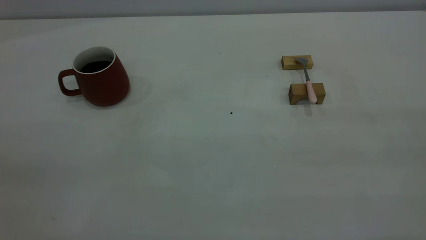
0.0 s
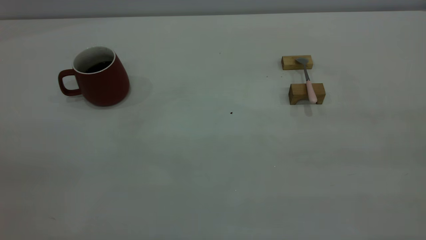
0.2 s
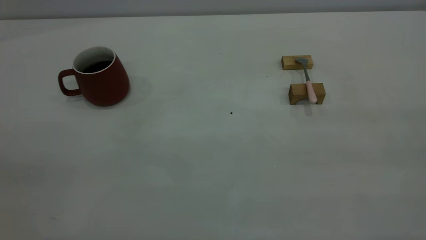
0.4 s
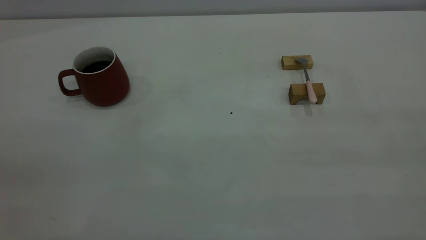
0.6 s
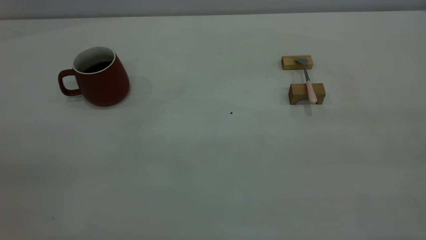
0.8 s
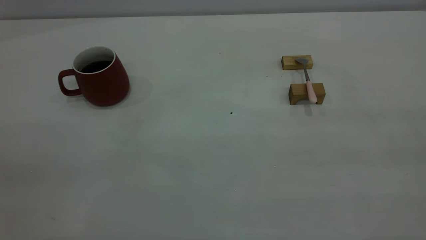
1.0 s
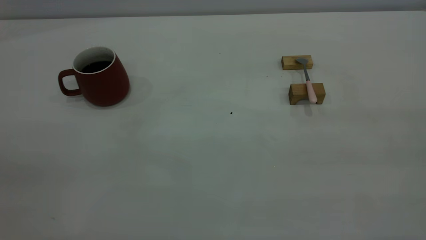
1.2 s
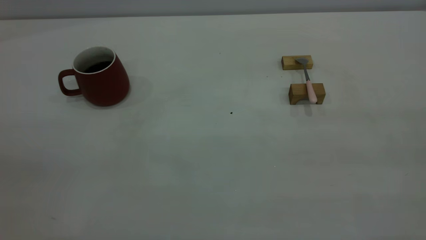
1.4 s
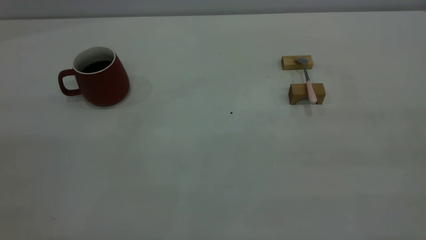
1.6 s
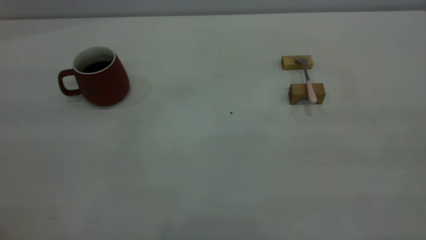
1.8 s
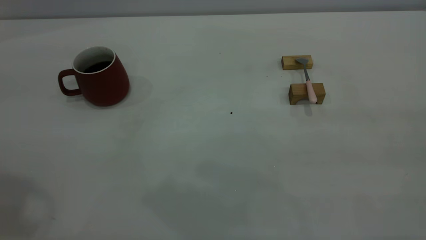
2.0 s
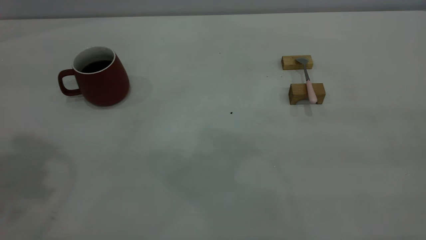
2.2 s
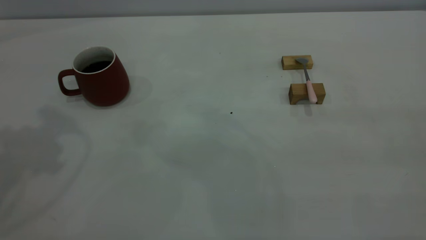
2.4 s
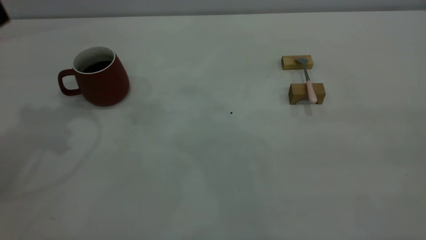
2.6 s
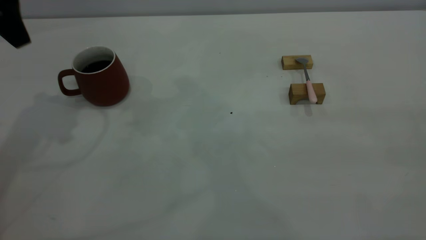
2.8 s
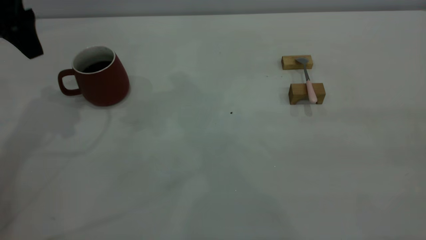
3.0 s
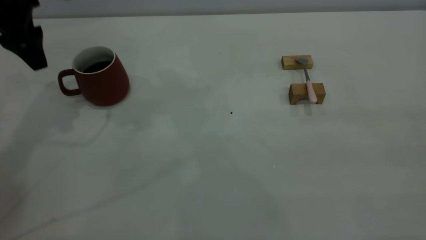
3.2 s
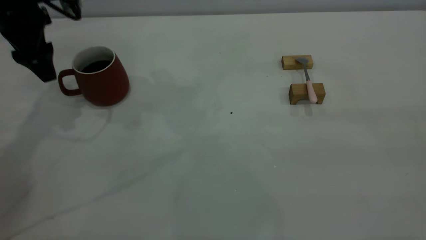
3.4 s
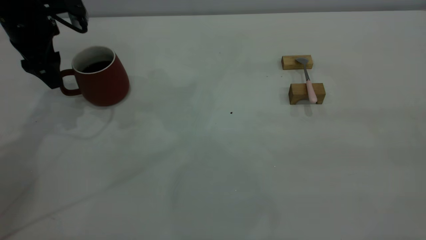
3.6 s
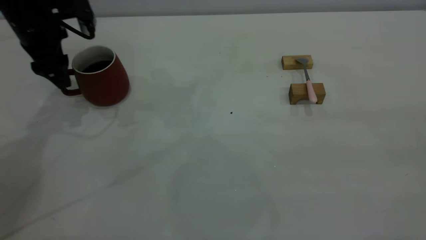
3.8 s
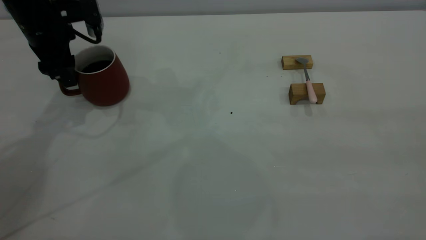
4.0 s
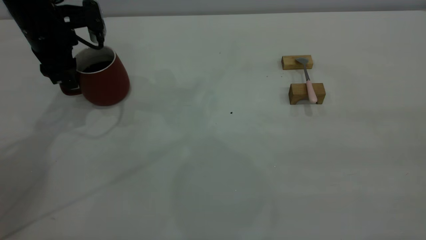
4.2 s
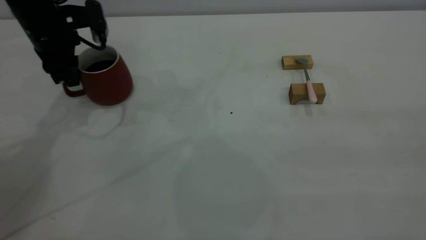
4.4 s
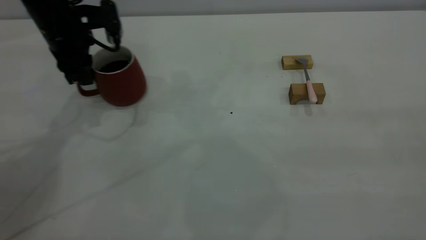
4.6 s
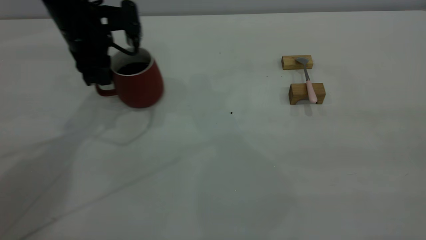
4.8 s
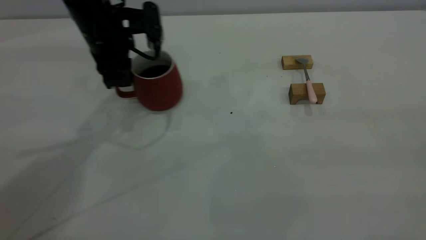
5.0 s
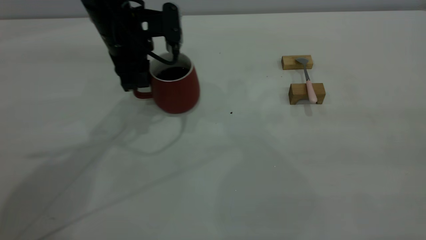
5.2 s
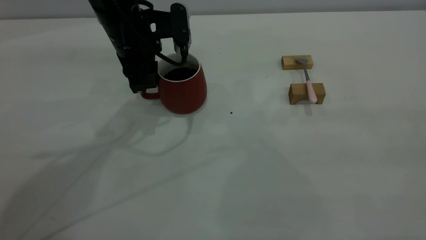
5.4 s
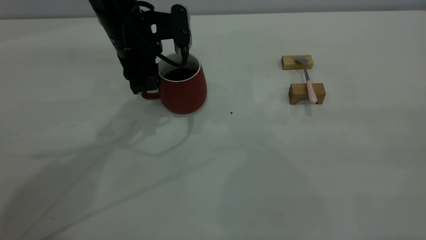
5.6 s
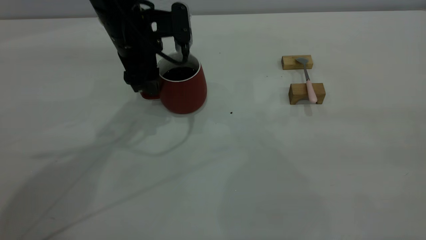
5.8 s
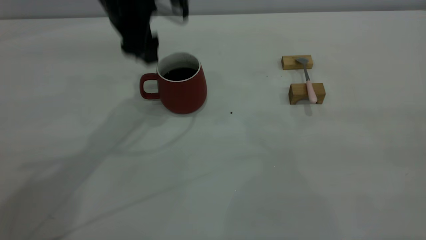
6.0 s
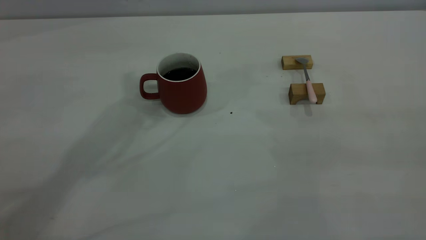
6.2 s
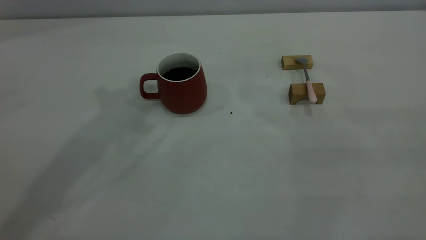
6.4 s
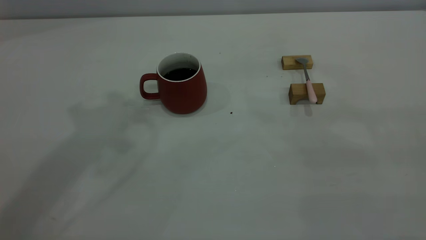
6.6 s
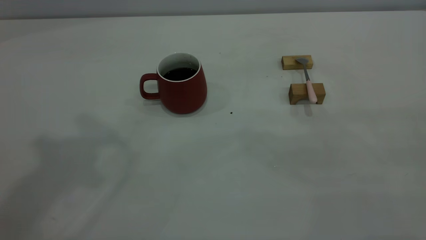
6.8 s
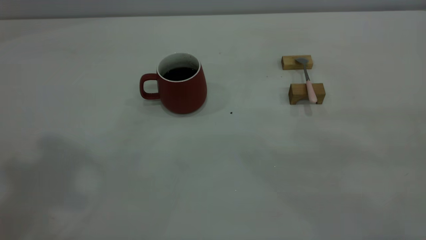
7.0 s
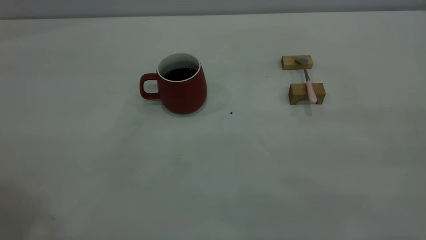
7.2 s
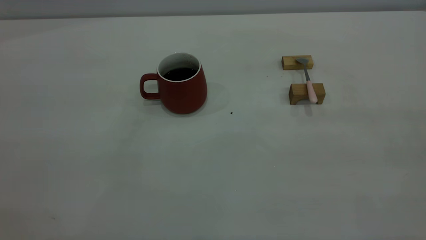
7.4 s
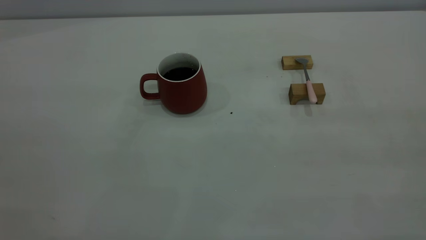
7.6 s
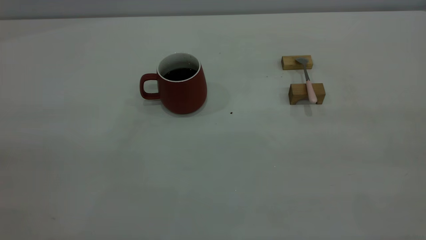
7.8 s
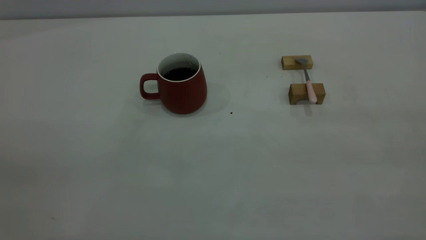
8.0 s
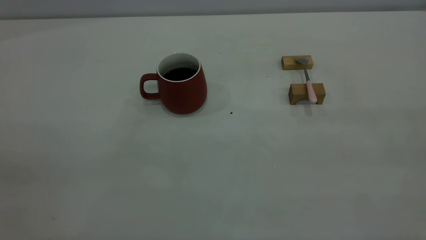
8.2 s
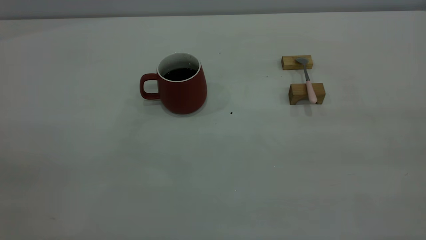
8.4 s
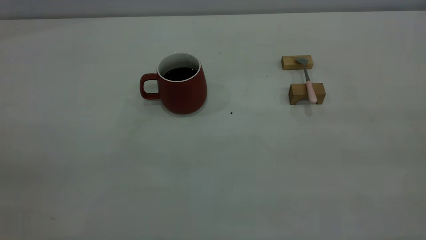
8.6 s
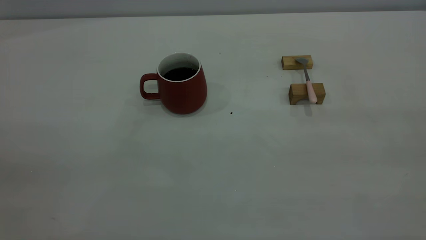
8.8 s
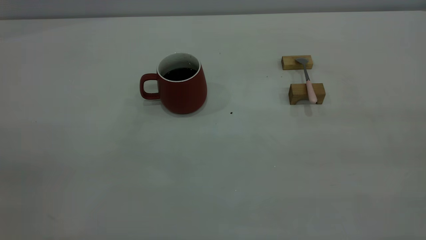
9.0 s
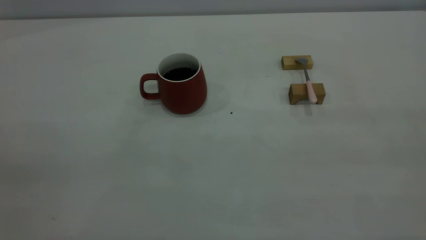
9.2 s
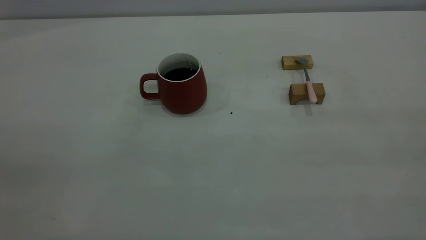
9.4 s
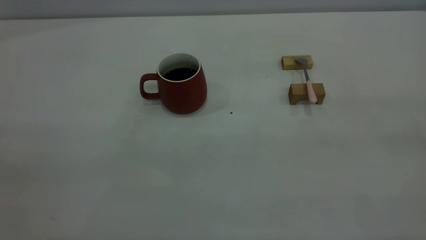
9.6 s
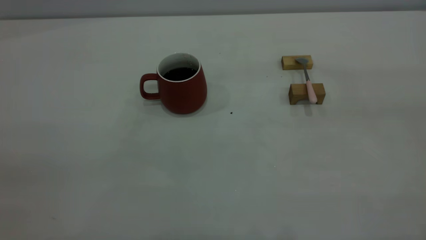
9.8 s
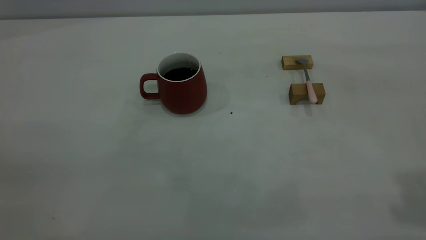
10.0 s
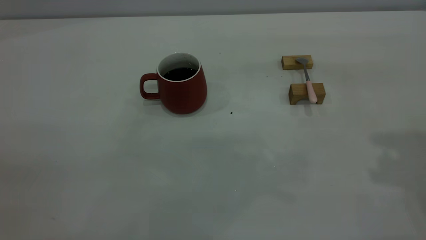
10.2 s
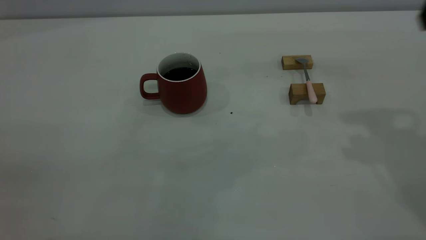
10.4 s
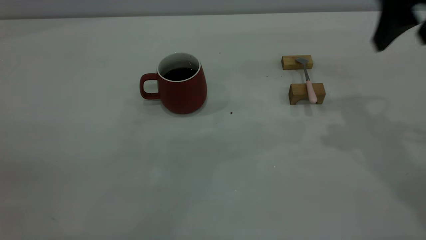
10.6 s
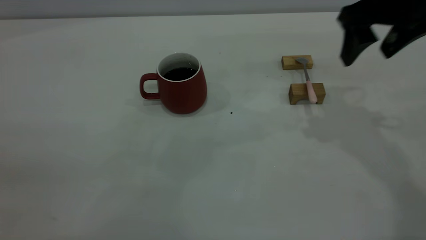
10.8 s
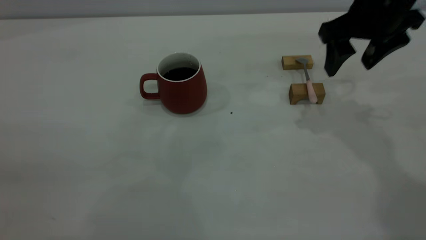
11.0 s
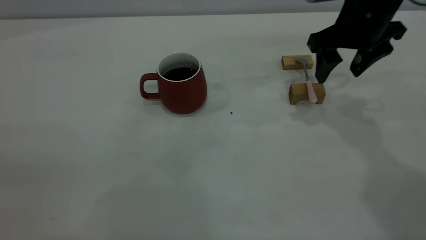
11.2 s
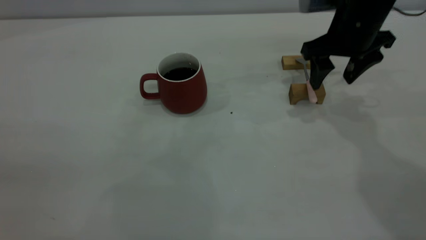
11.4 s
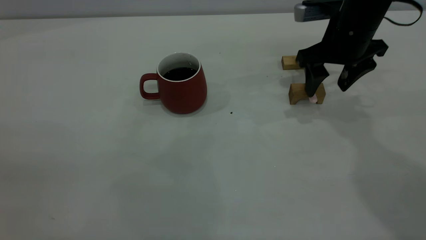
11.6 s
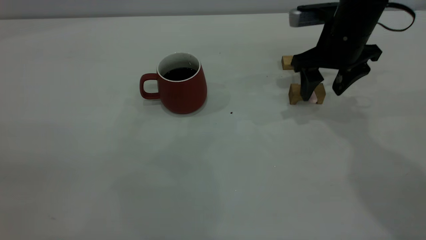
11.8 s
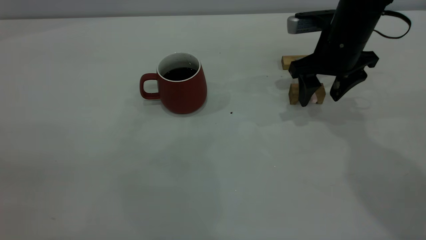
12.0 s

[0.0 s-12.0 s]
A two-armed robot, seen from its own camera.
Step, 0.0 to 6.0 s: Move the cup with coffee to the center of view.
1.6 to 3.0 s: The left gripper heads forward and downward, covering approximately 40 cm, and opens its fingers.
3.0 to 4.4 s: The left gripper travels downward by roughly 10 cm, and closes.
4.4 to 6.0 s: The left gripper heads to the right and upward, covering some 15 cm, and opens.
6.0 to 7.6 s: The left gripper shifts some 50 cm backward, upward and to the left, and closes up.
10.4 to 12.0 s: The right gripper heads downward, forward and to the left, covering some 20 cm.

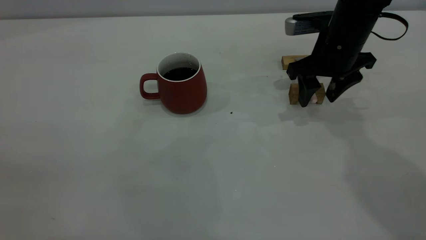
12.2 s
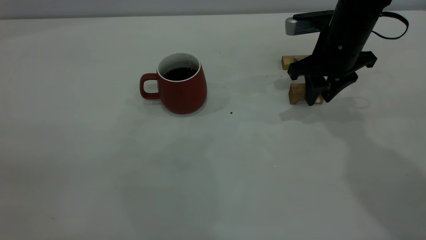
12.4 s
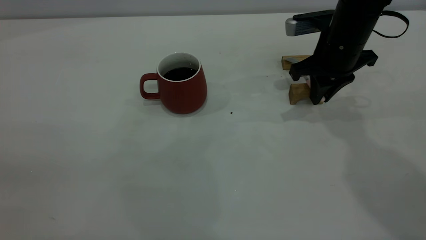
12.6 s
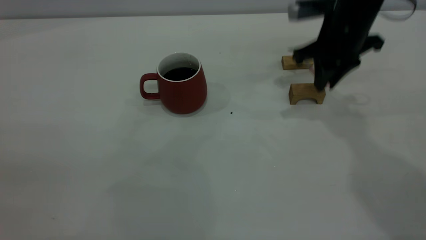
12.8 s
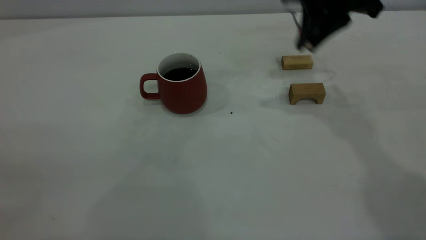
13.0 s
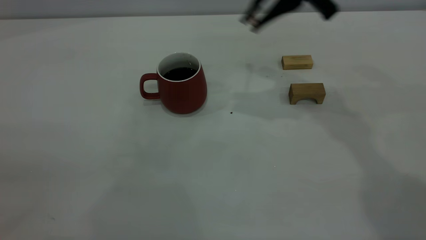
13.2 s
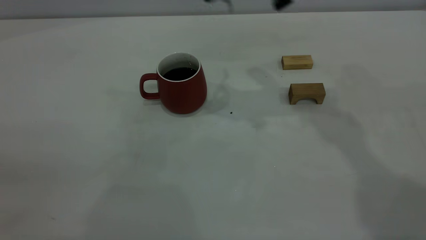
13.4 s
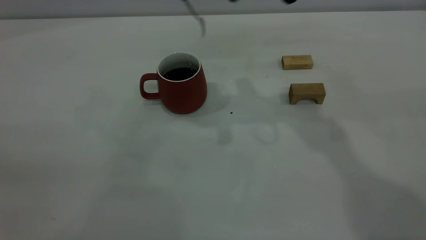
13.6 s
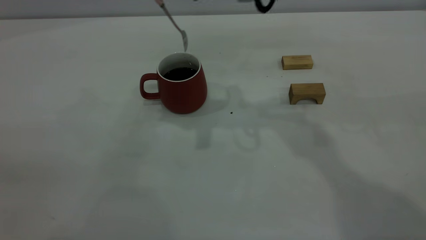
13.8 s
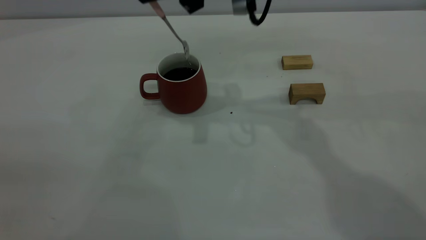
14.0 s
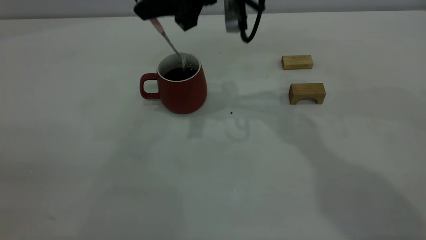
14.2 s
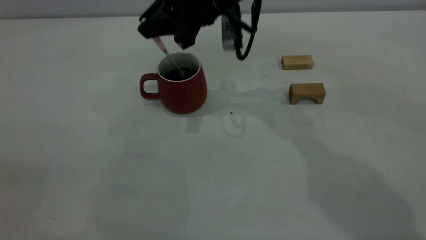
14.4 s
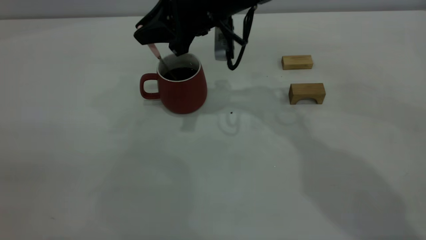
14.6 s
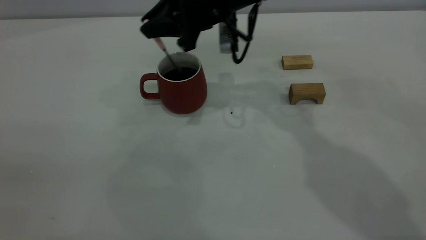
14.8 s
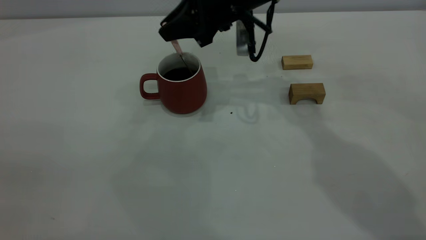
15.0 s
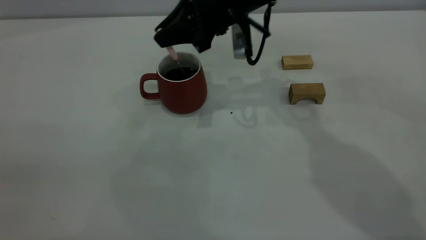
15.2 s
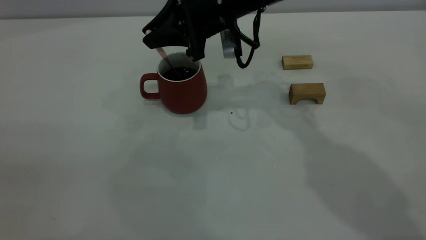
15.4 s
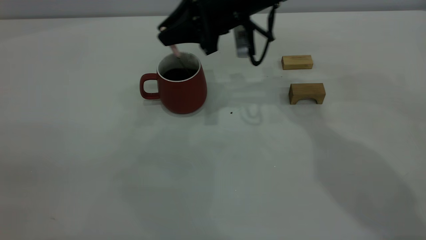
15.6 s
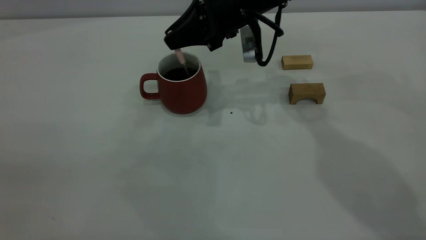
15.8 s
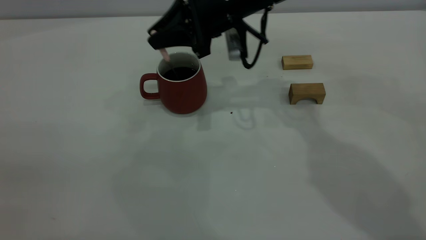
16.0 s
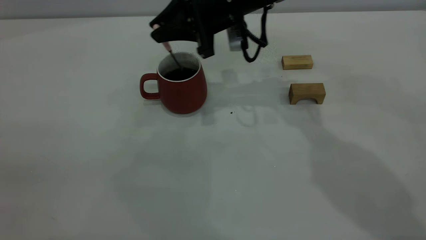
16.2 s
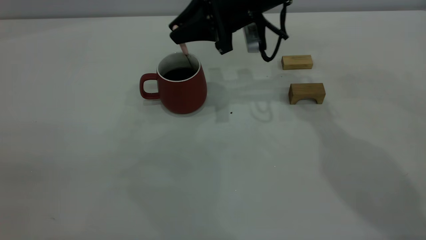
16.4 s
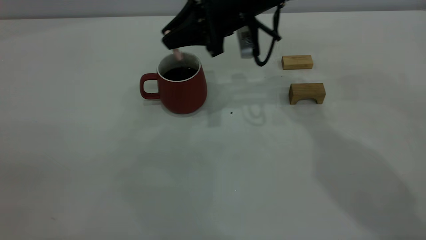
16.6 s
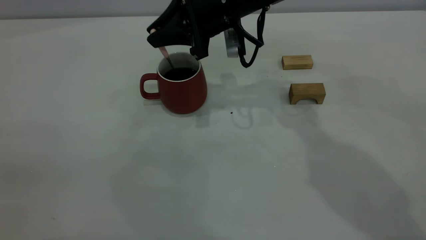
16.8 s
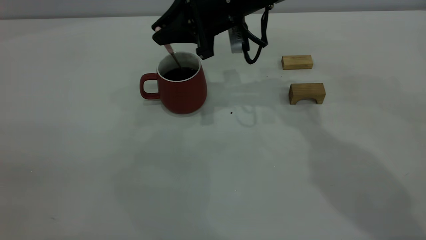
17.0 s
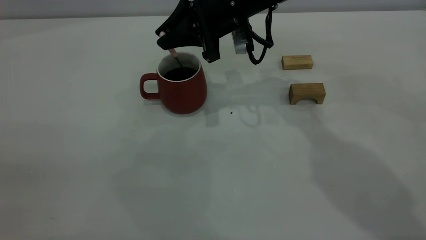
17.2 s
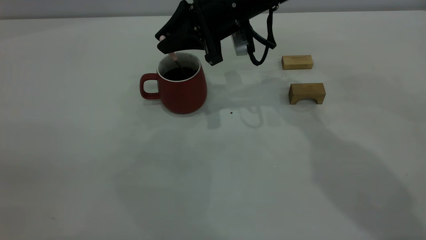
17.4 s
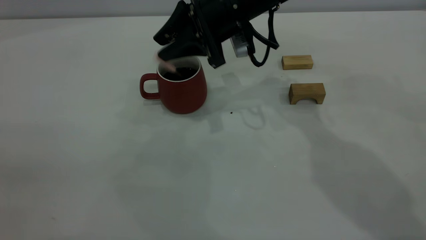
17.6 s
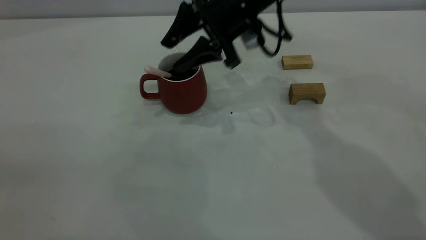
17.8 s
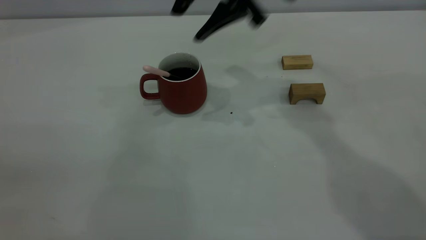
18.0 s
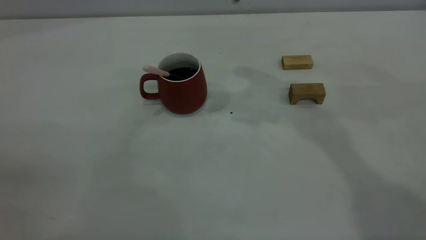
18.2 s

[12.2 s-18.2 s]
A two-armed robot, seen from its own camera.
Step, 13.0 to 17.8 s: Stir the coffee in the cup.
12.2 to 13.8 s: The right gripper goes roughly 20 cm upward and to the left, and closes.
13.8 to 15.2 s: The right gripper heads downward and forward, covering roughly 10 cm.
15.2 to 16.6 s: The grippers move only a little.
16.6 to 18.2 s: The right gripper is displaced upward by approximately 20 cm, and opens.
